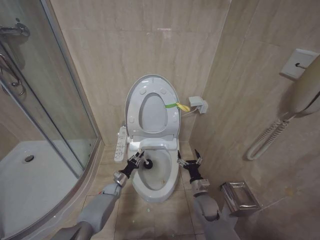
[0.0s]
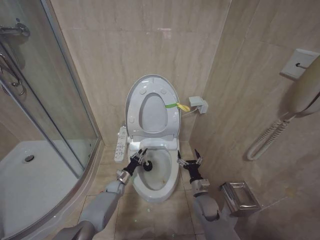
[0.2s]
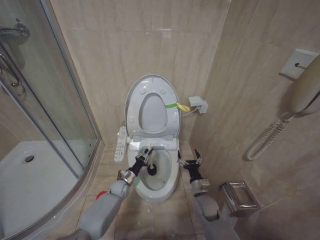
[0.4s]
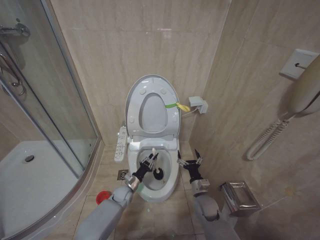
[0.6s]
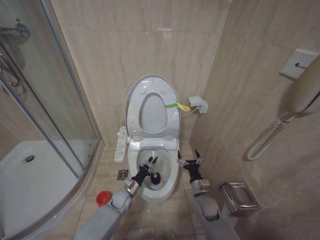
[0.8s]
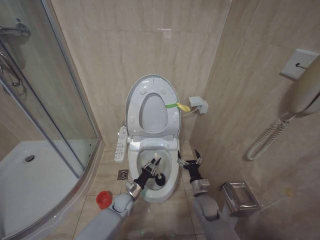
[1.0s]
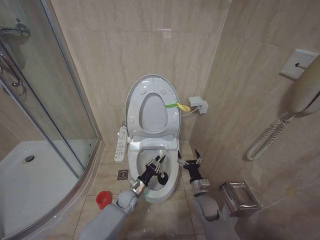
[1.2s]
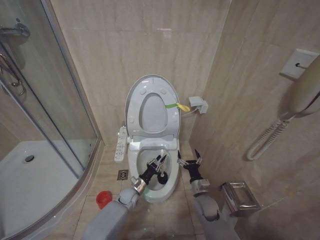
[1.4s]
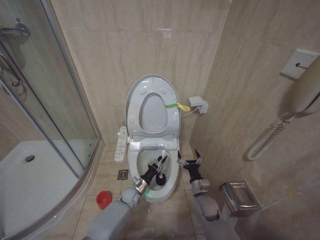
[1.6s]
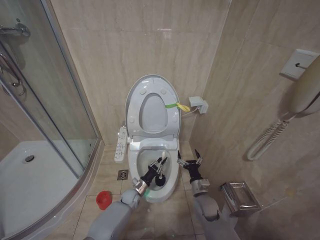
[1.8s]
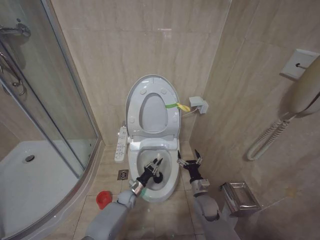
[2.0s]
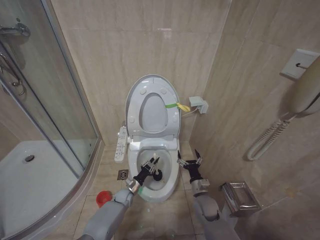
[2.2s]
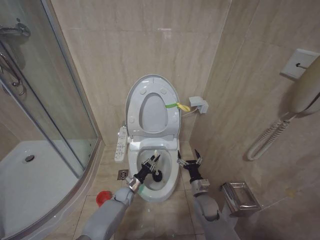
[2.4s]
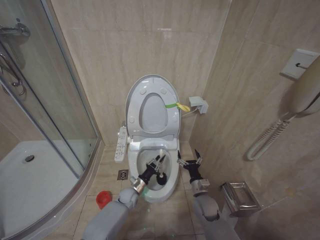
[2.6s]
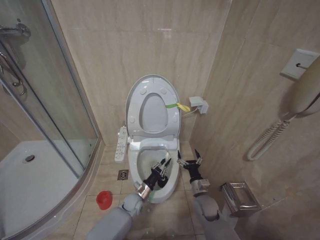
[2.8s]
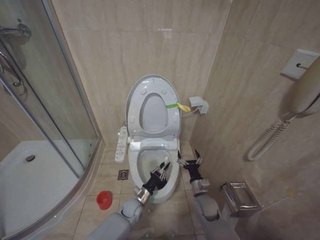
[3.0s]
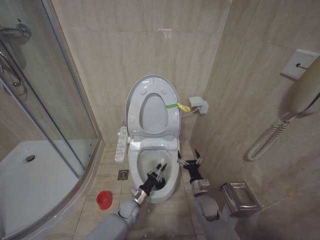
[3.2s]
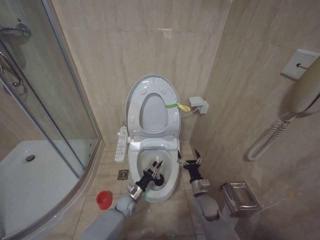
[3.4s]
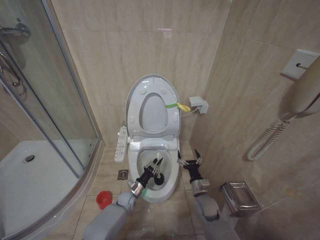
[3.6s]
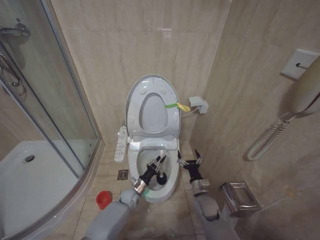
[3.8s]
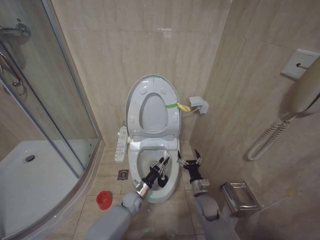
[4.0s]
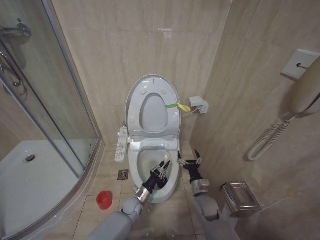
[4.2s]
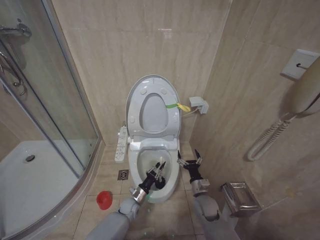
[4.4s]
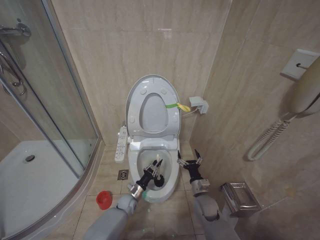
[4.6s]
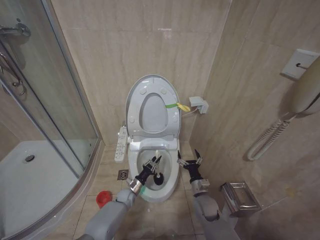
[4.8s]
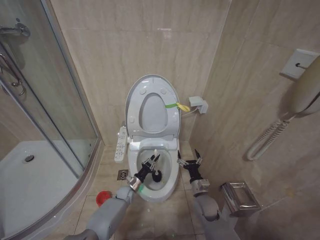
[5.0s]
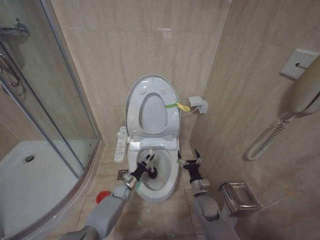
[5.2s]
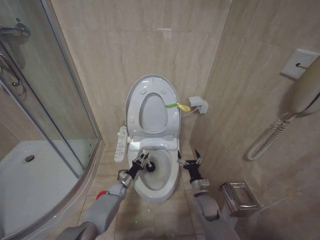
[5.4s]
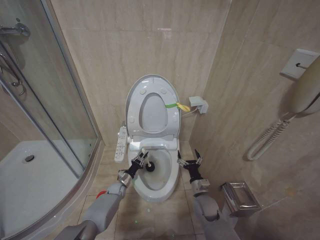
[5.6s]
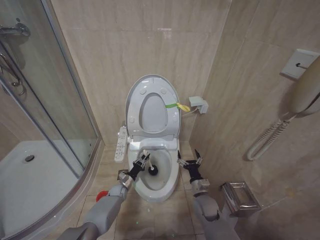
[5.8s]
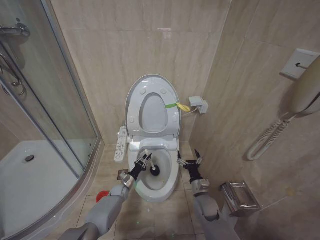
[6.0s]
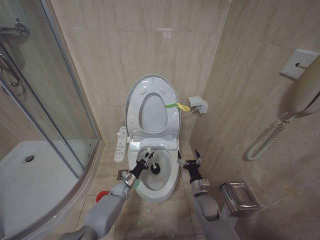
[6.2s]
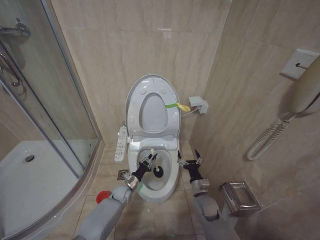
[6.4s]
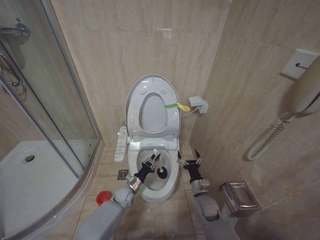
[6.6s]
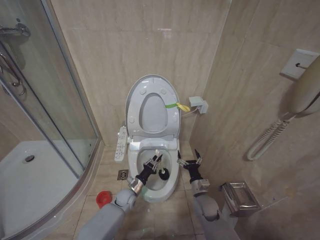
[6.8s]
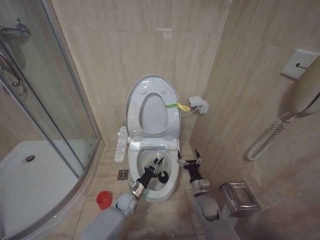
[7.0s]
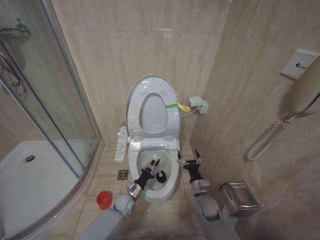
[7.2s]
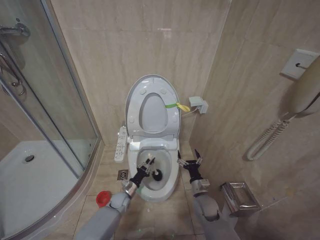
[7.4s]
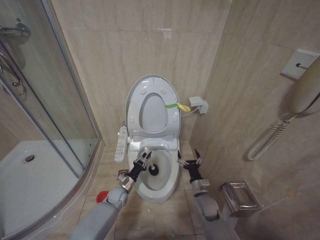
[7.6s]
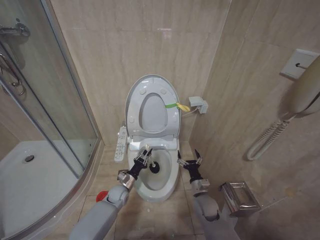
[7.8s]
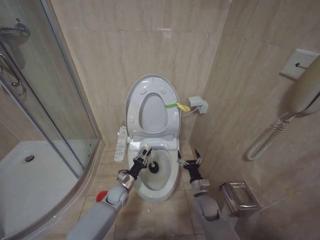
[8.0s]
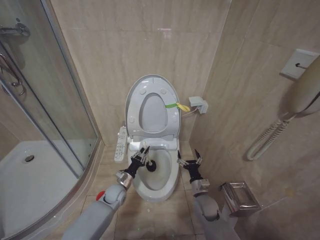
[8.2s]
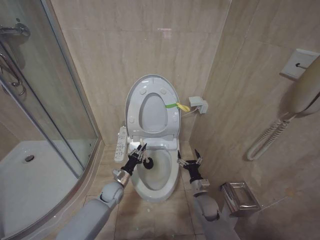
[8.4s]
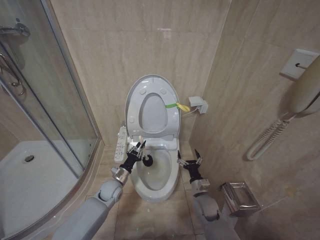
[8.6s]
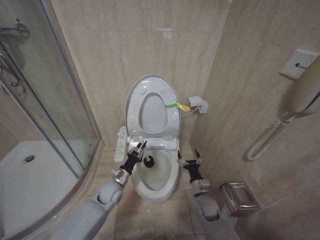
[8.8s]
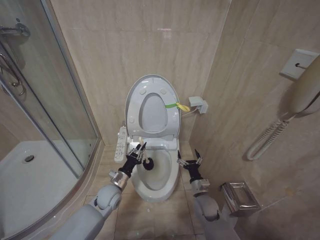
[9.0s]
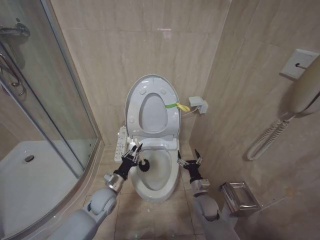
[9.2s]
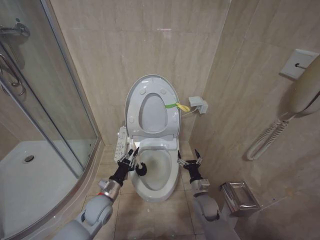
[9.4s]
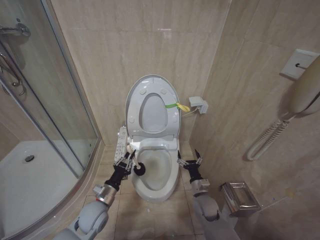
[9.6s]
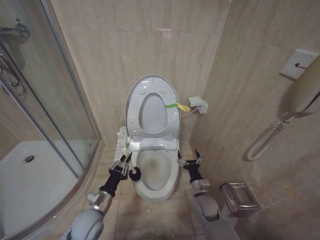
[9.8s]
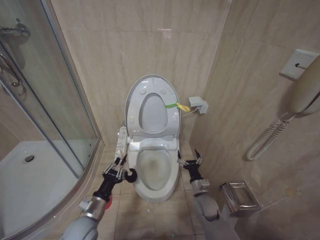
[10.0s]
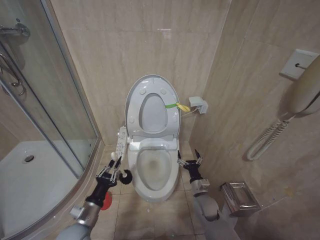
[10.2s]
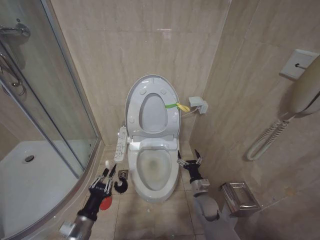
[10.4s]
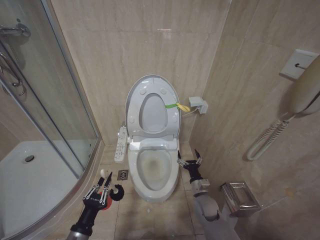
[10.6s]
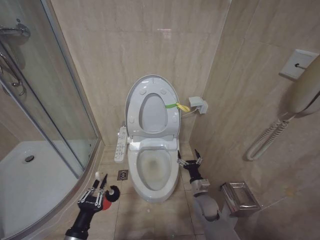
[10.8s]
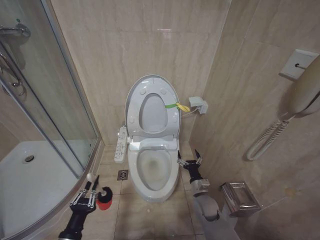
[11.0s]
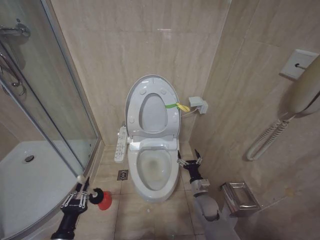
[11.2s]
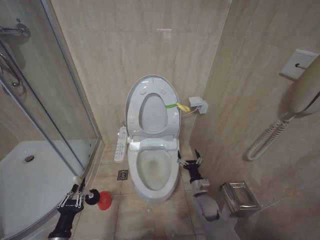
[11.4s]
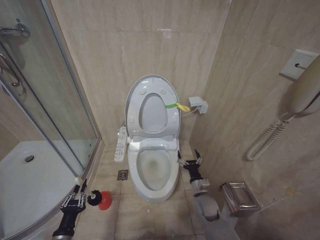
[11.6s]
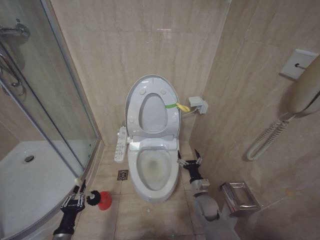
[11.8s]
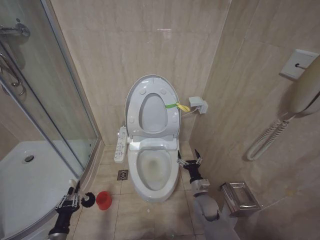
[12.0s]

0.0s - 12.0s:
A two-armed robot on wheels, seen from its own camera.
Task of the whole recording: Open the toilet lid, clean the toilet bowl with a toilet brush, close the toilet lid, and flush.
0.0s - 1.6s: The left gripper heads to the right, covering some 10 cm.
1.6s - 3.0s: The left gripper travels backward by approximately 5 cm.
4.4s - 6.0s: The left gripper heads forward and to the left, covering approximately 10 cm.
7.6s - 9.0s: The left gripper heads upward, covering approximately 10 cm.
9.0s - 10.4s: The left gripper is displaced backward and to the left by about 20 cm.
10.4s - 12.0s: The left gripper shifts approximately 15 cm downward and to the left.

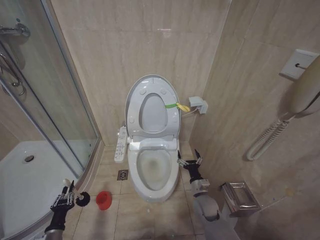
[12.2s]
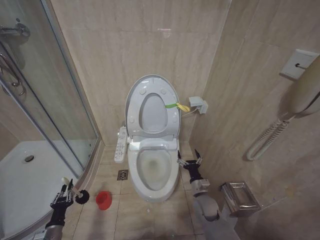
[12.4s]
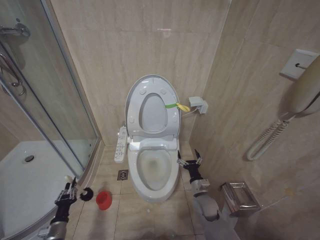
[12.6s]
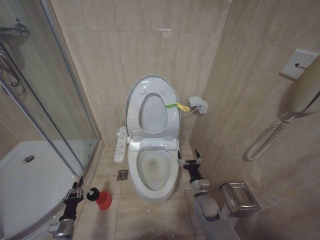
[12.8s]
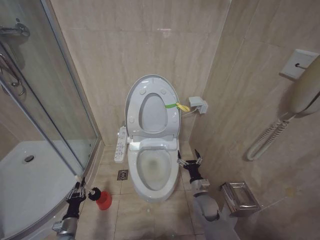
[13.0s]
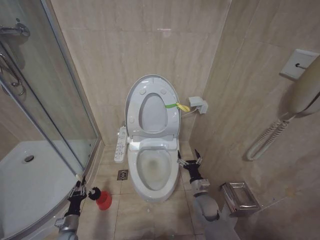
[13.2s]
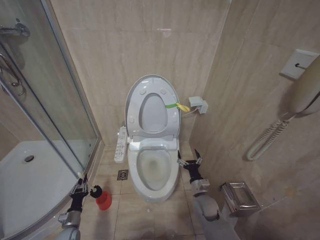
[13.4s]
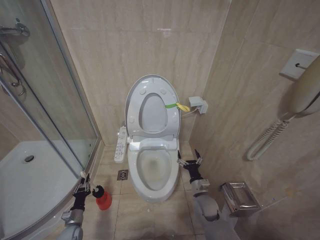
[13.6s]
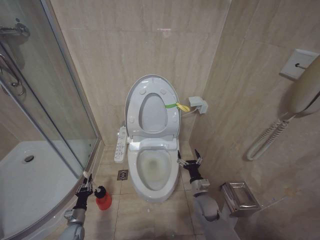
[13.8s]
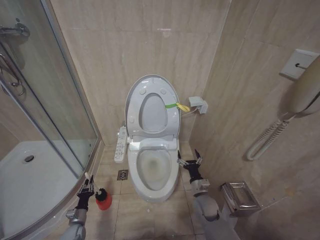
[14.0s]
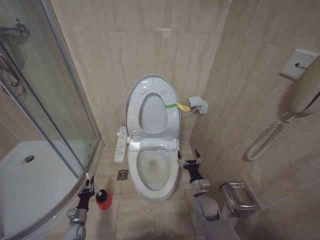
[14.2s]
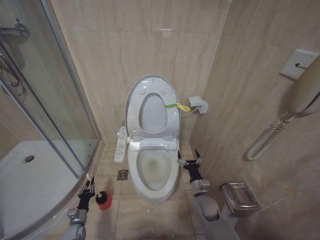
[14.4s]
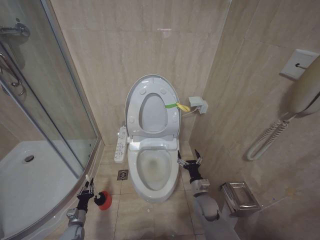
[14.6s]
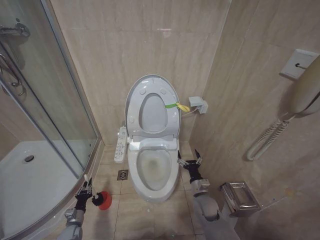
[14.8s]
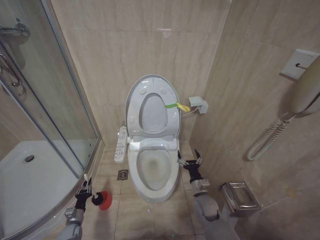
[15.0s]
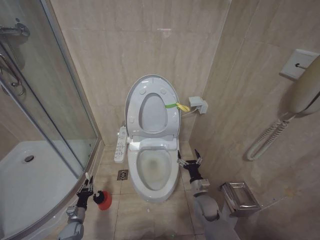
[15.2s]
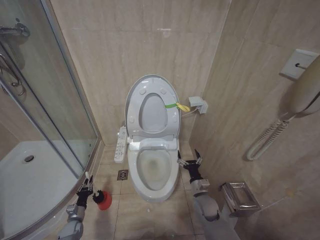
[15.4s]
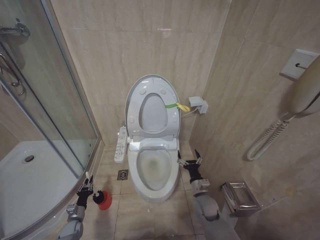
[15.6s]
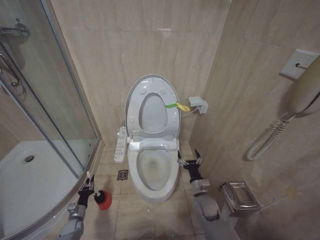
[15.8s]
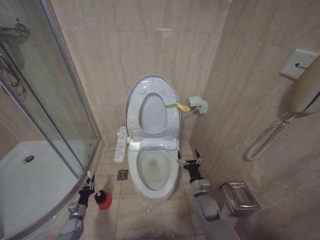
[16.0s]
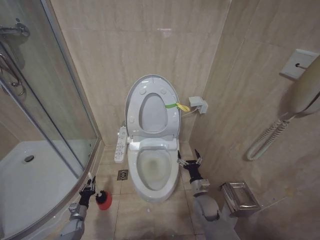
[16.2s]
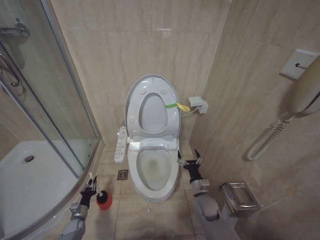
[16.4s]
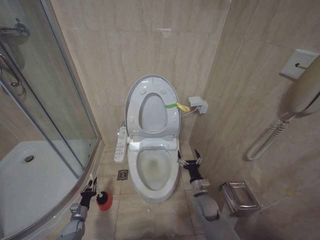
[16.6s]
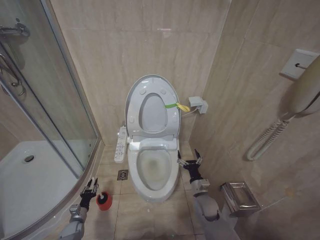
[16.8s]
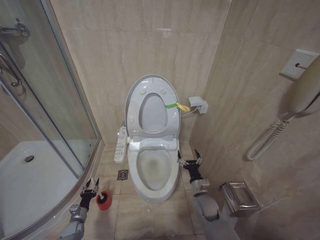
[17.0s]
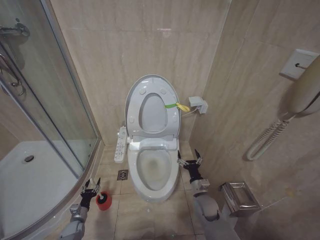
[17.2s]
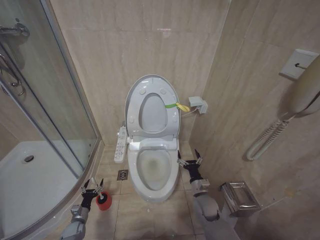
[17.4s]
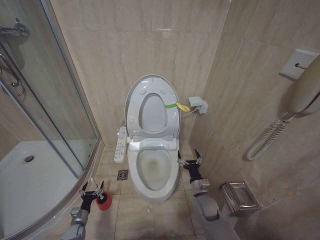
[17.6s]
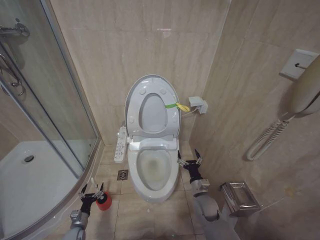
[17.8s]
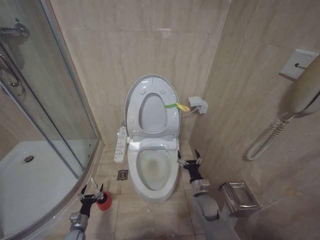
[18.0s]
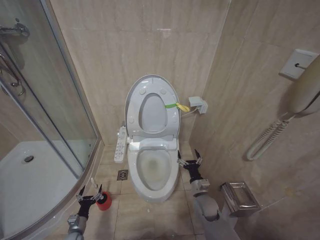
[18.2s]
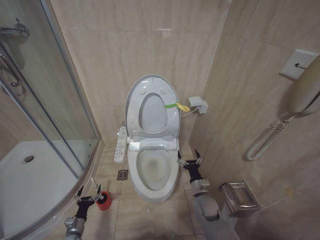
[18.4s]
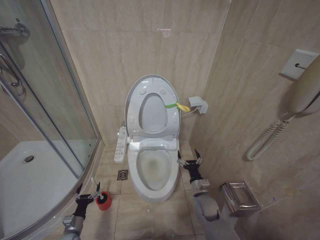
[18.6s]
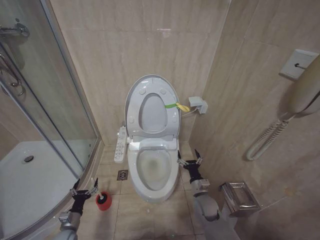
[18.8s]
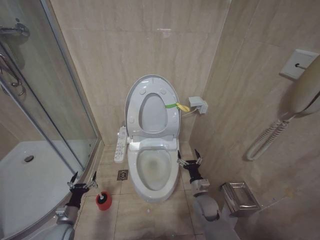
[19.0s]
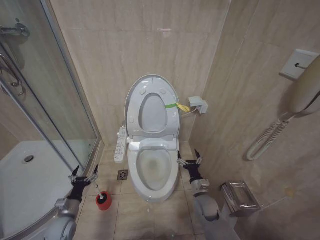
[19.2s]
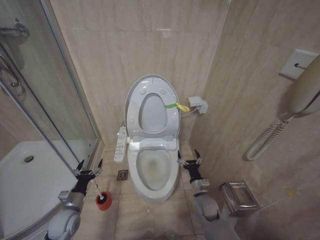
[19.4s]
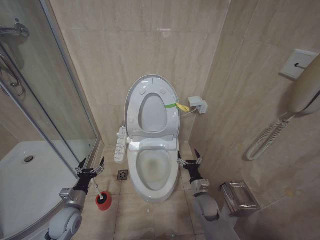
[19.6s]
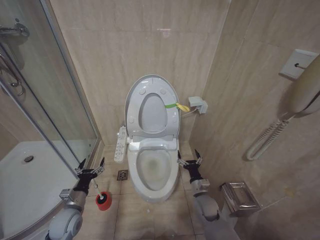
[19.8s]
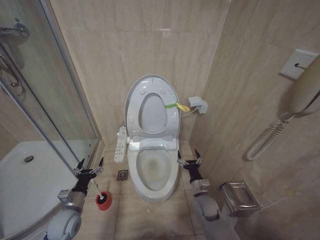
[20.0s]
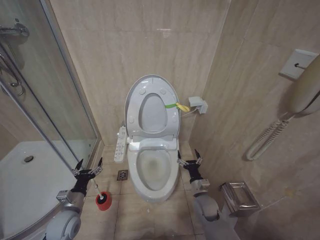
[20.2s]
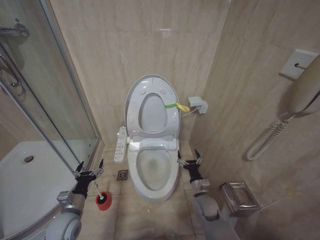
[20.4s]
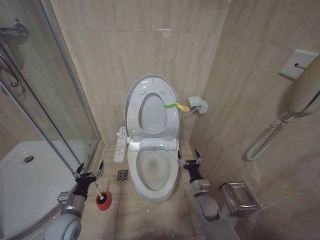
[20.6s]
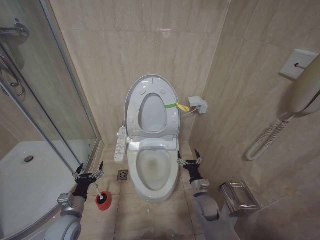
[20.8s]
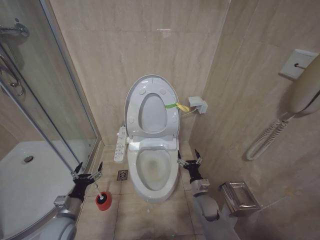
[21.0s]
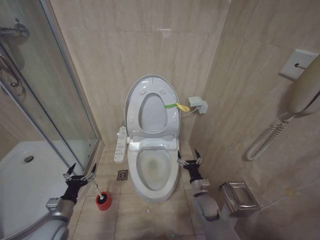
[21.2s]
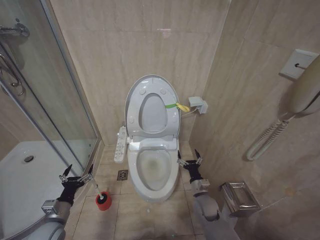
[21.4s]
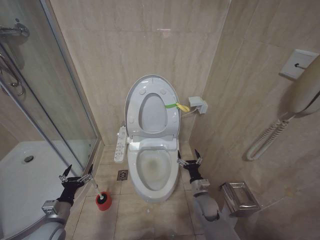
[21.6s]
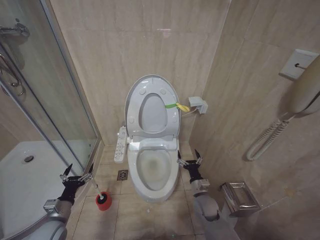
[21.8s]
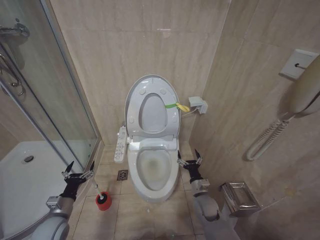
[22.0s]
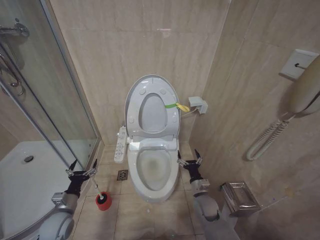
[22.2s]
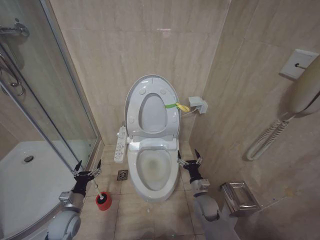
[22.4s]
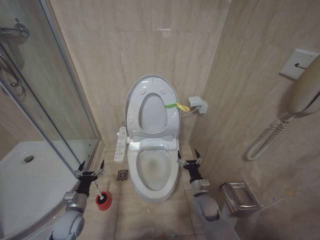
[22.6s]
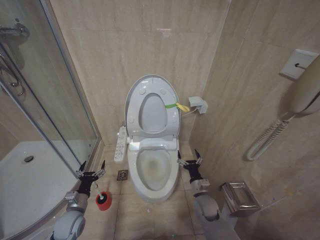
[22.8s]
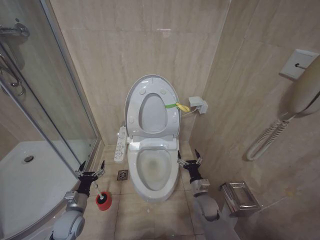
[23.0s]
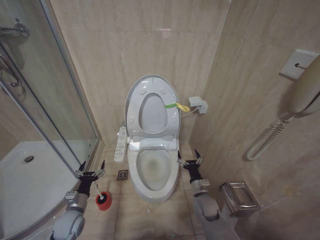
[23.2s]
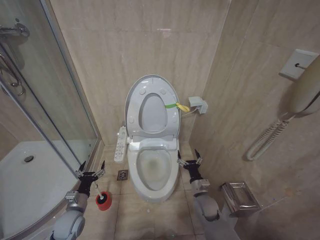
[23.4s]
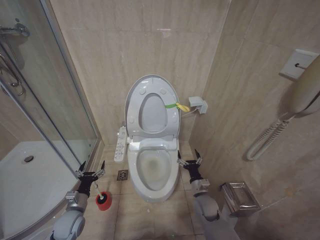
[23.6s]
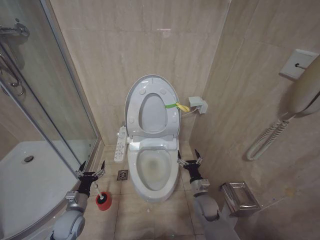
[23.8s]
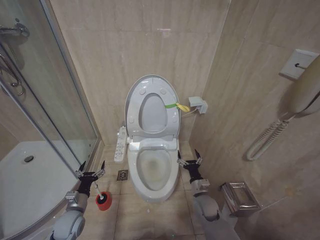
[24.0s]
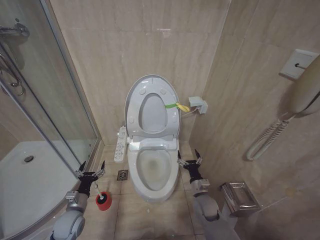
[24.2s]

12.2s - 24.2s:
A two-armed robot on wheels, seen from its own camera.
Task of the whole recording: Open the toilet lid, clean the toilet bowl with a toilet brush, close the toilet lid, and flush.
12.2s - 13.8s: The left gripper goes some 15 cm forward and downward.
16.6s - 18.2s: The left gripper opens.
18.2s - 19.8s: The left gripper moves upward, roughly 20 cm.
19.8s - 21.2s: There are only small adjustments of the grippers.
21.2s - 22.6s: The left gripper shifts by roughly 5 cm.
22.6s - 24.2s: The two grippers keep their place.
